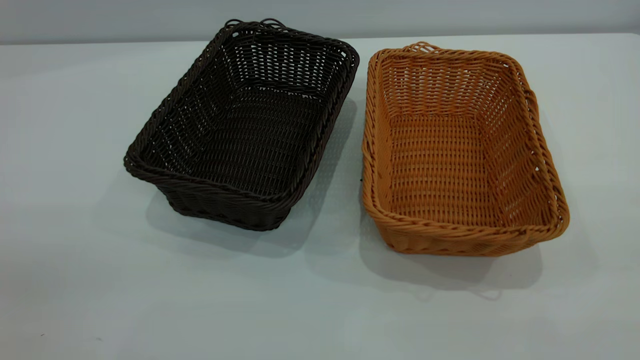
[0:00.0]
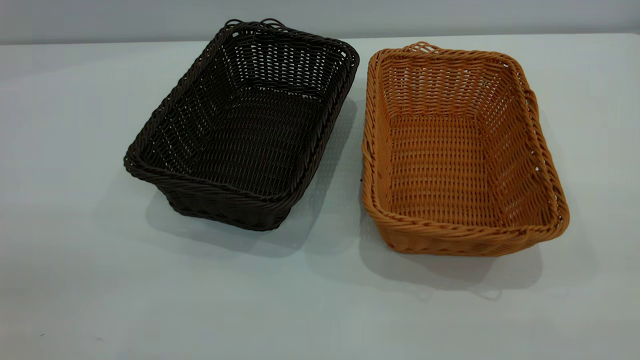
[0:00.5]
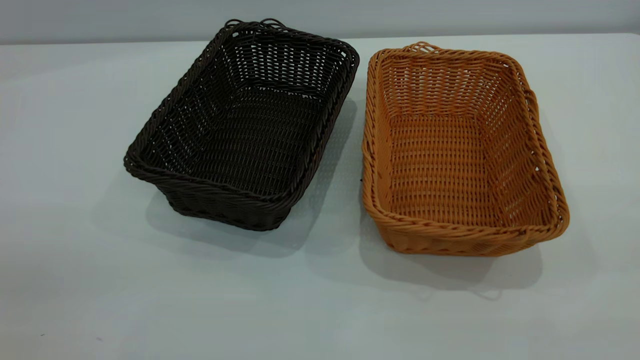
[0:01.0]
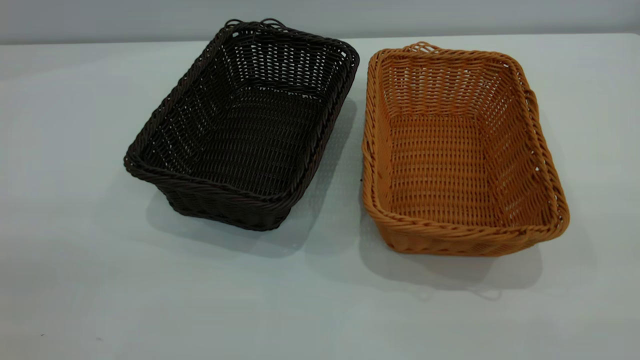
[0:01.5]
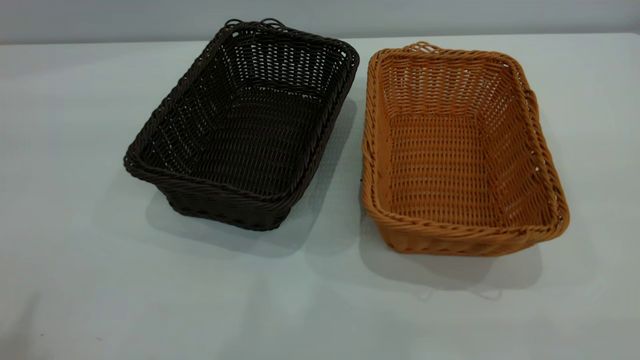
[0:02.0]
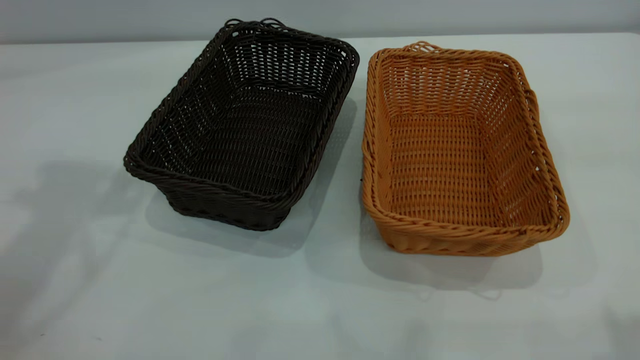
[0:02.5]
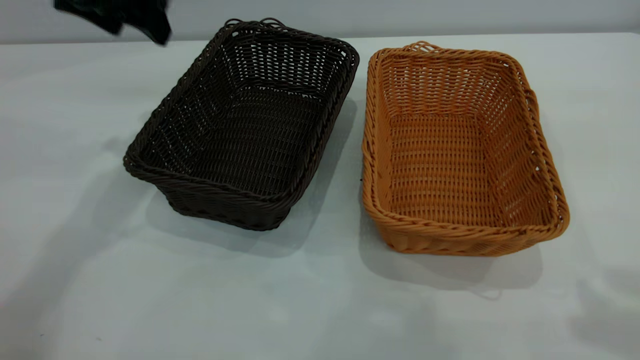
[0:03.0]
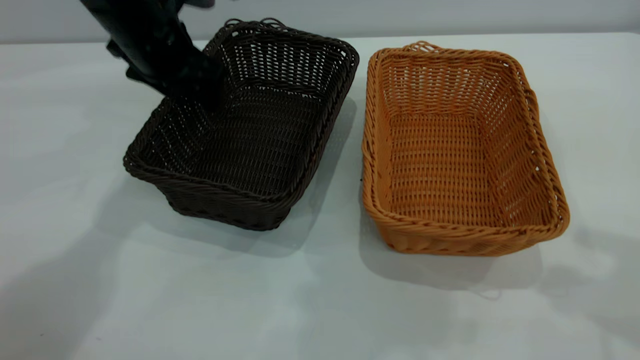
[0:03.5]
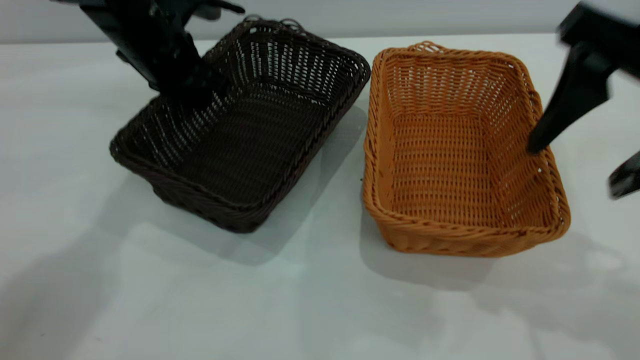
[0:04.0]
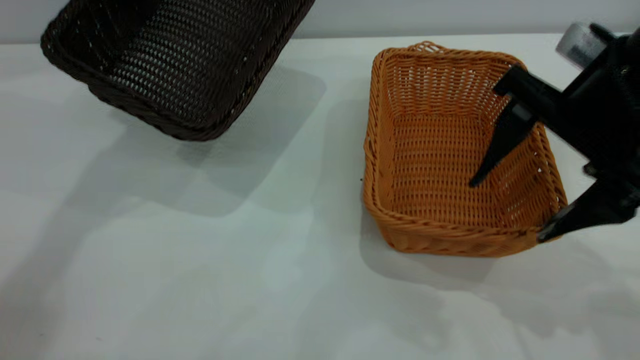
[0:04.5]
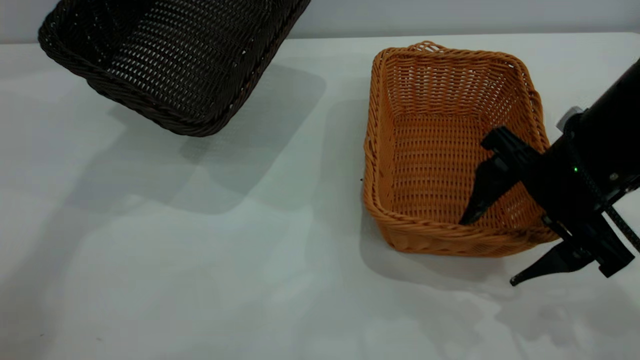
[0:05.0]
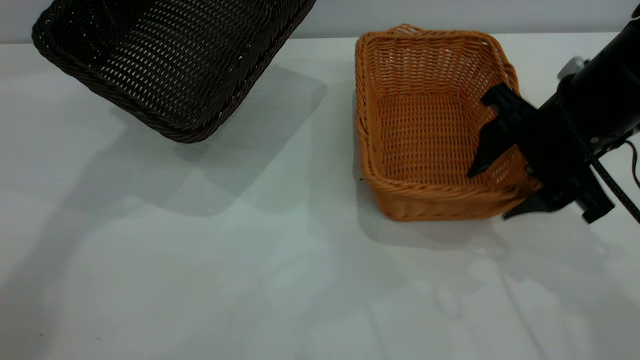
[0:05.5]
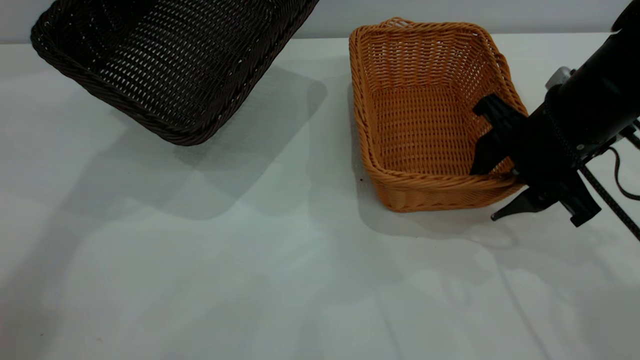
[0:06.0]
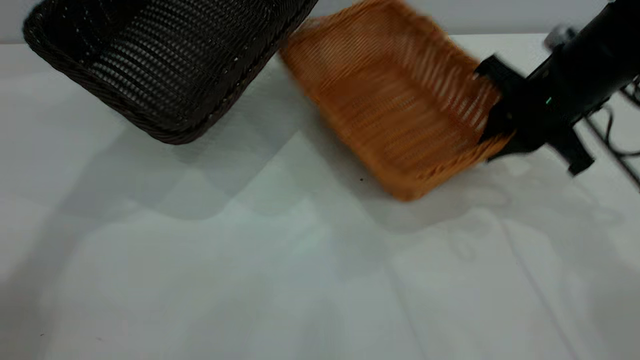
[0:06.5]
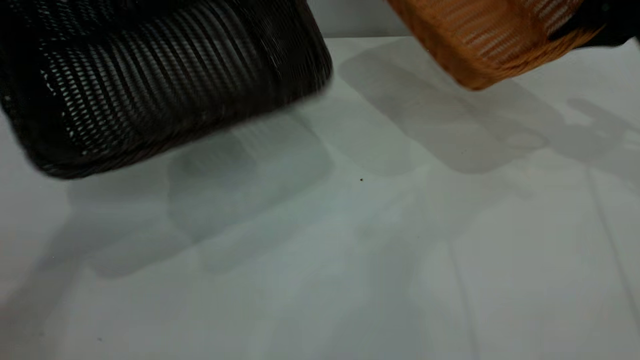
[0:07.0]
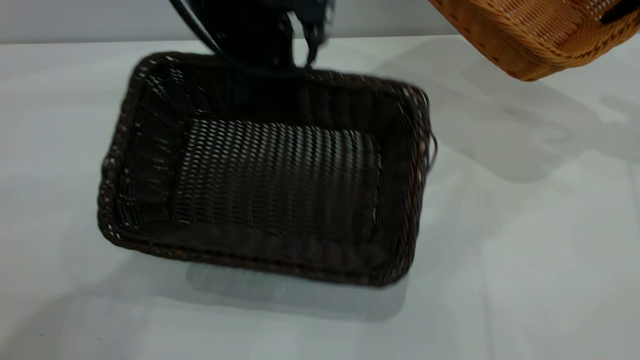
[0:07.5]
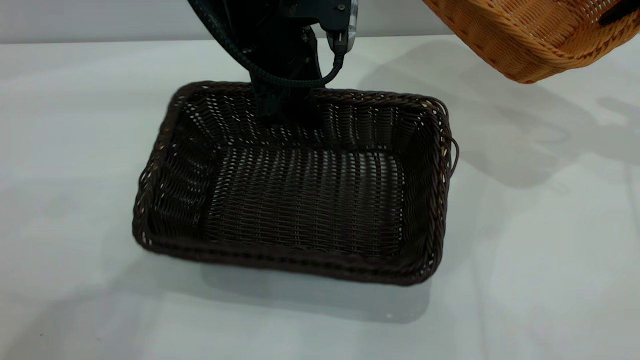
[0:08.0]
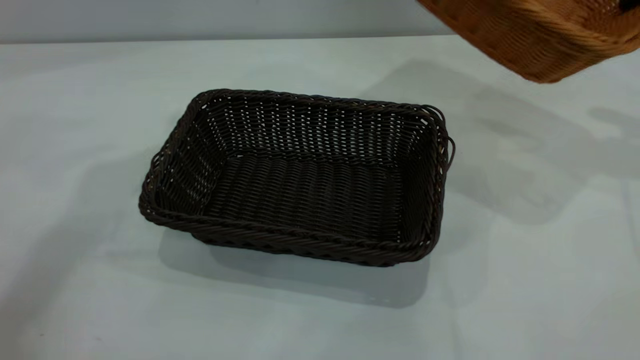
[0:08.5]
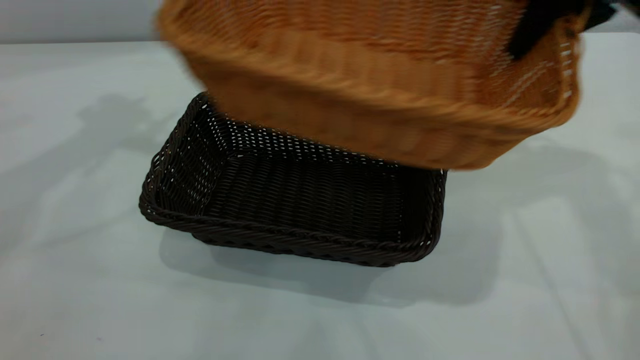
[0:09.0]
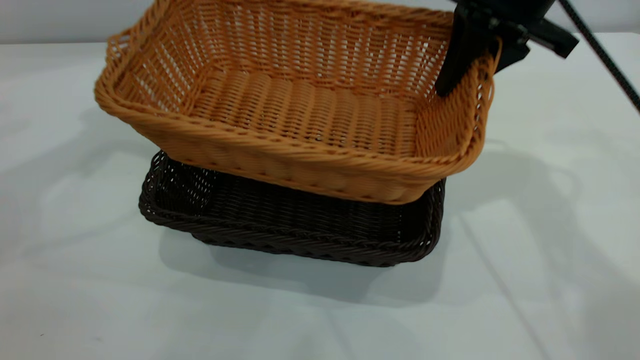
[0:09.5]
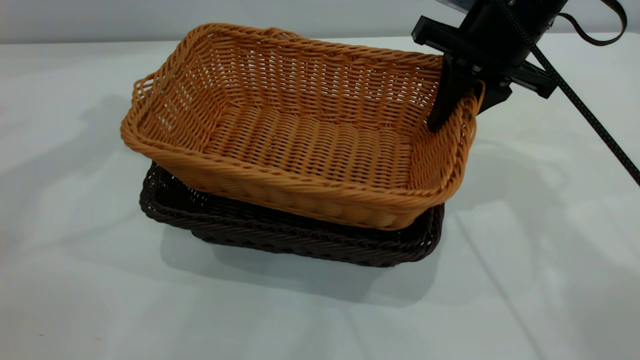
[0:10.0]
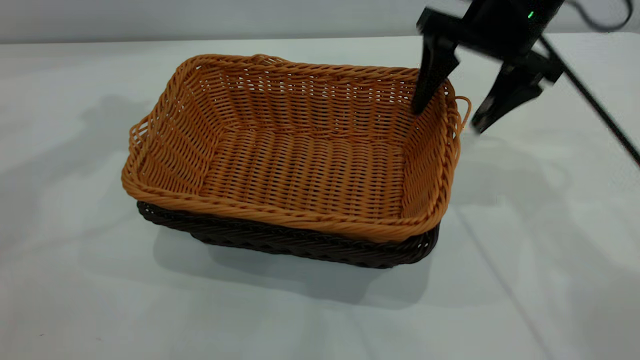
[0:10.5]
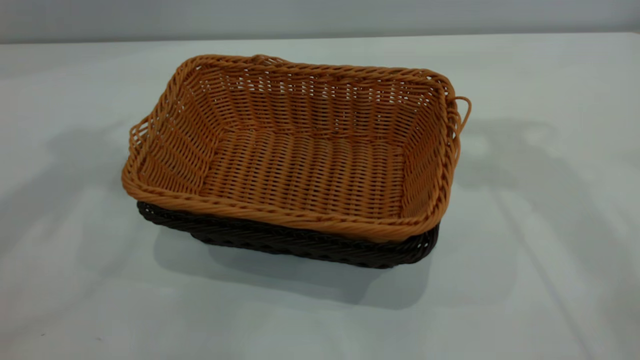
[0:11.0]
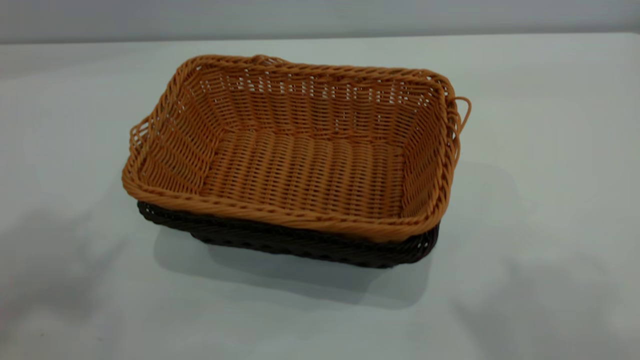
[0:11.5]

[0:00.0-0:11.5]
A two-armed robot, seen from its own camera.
Task of the whole recording: the left gripper grasp the black basket and place it in the center of the table, the right gripper grasp the brown basket and place it inside the black one.
Step, 0.0 to 6.5 s: Pick up the light basket with the right gripper.
Step, 7.0 to 8.0 s: Move the dark basket to the center of view.
Step, 8.5 to 10.5 s: Place the light basket on the dark basket.
2.0 to 4.0 s: The left gripper shifts about 40 cm forward and downward, and closes; the right gripper travels forward and downward by some 25 cm.
4.0 to 6.0 s: The left gripper heads upward, covering approximately 10 cm, while the right gripper is displaced downward and forward by roughly 15 cm, and closes.
6.0 to 7.5 s: The left gripper goes roughly 20 cm to the right, backward and downward. Meanwhile the right gripper heads to the right, forward and upward, covering roughly 25 cm, and closes its fingers.
7.5 to 9.5 s: The right gripper shifts roughly 20 cm to the left; the left gripper is displaced to the left and upward by roughly 25 cm, and opens.
9.5 to 11.5 s: The left gripper is displaced backward and upward by roughly 30 cm; the right gripper travels upward and backward by about 35 cm, and opens.

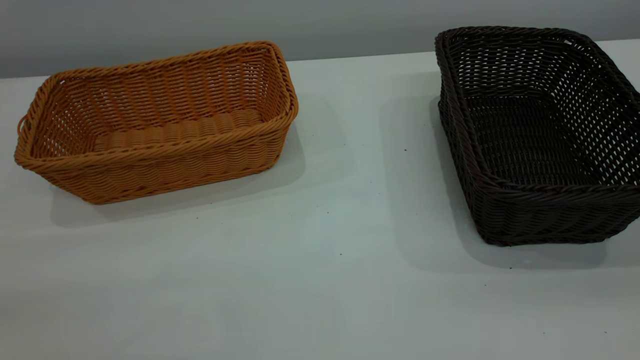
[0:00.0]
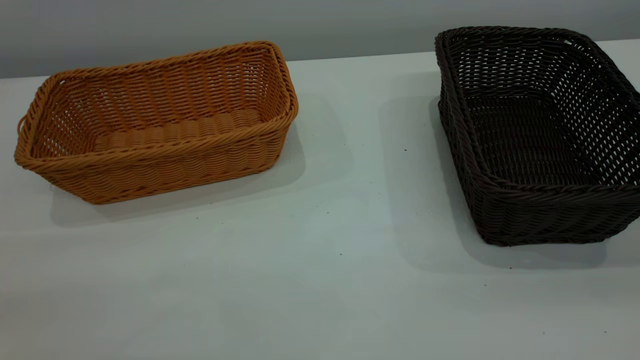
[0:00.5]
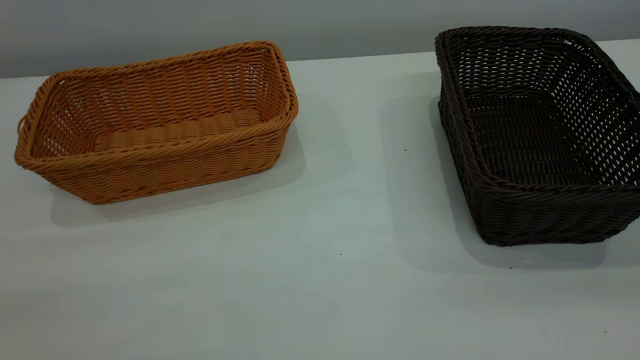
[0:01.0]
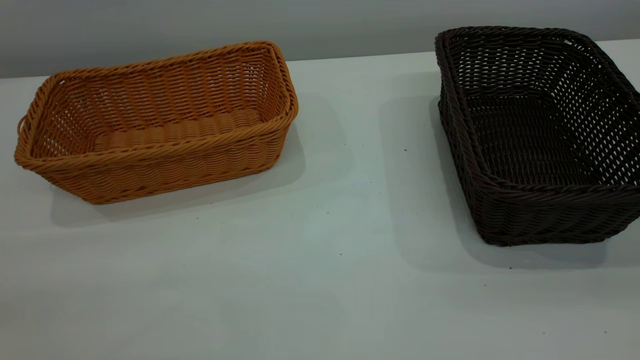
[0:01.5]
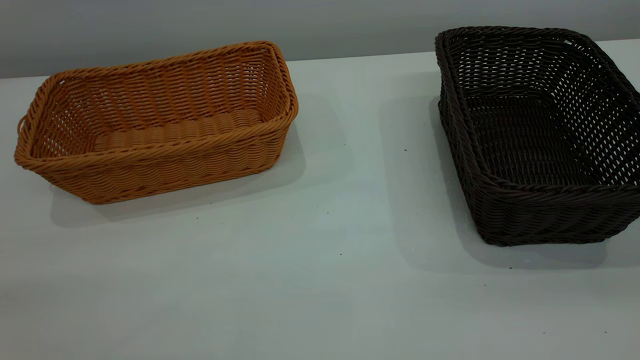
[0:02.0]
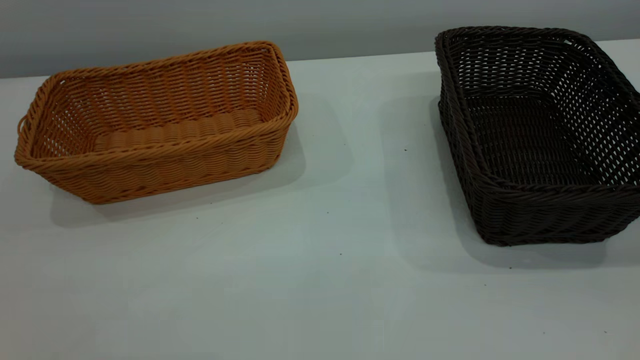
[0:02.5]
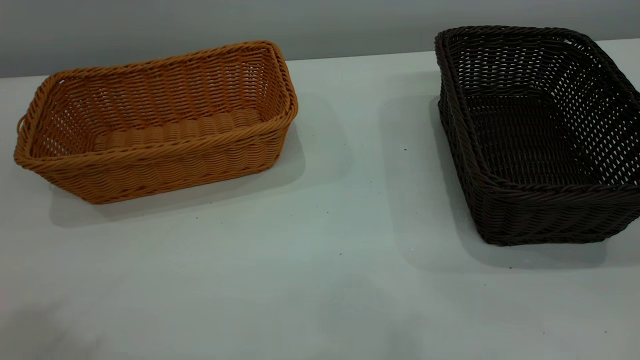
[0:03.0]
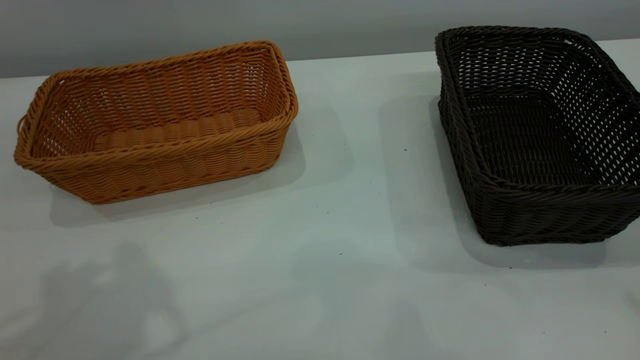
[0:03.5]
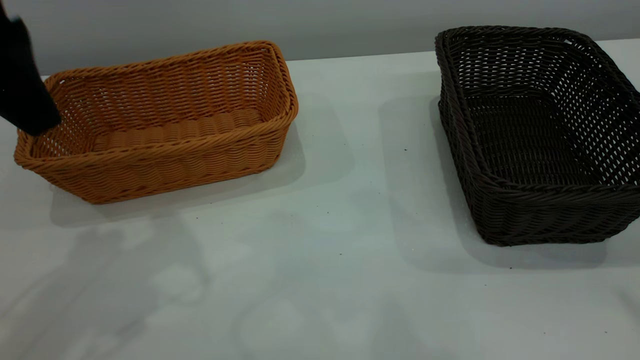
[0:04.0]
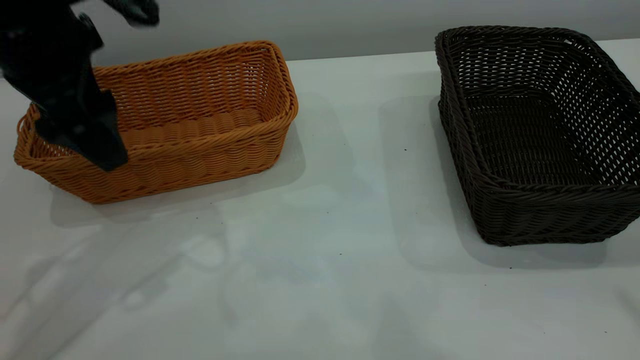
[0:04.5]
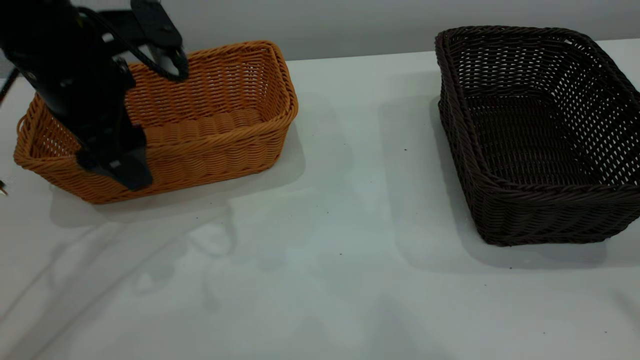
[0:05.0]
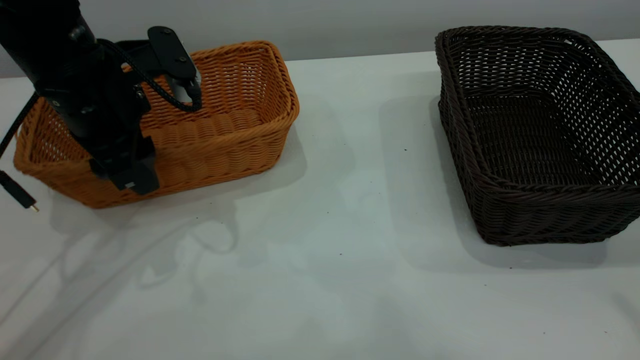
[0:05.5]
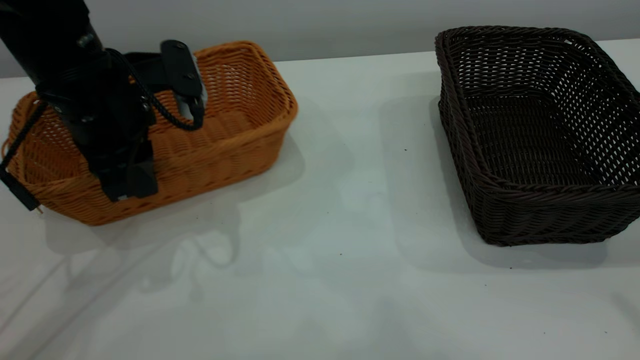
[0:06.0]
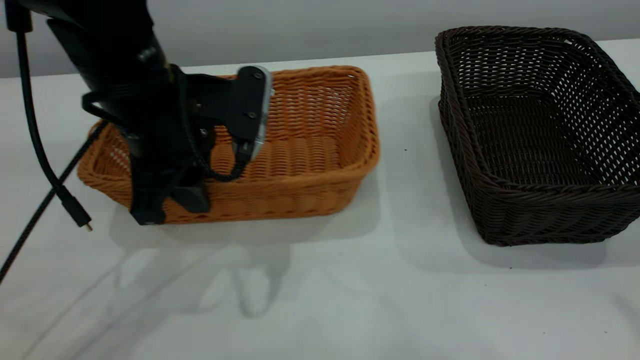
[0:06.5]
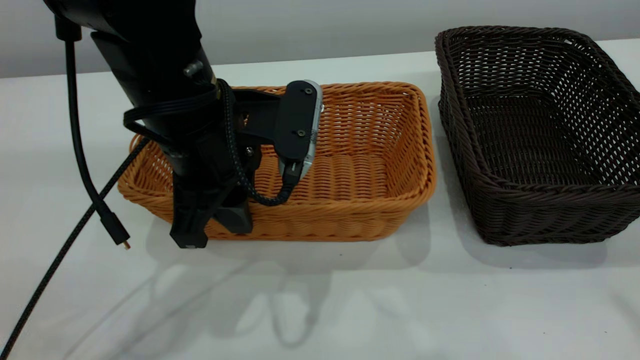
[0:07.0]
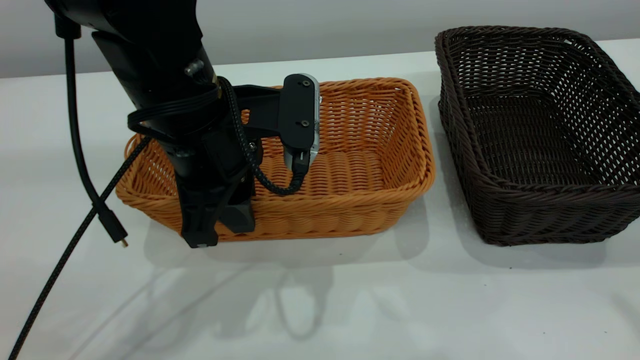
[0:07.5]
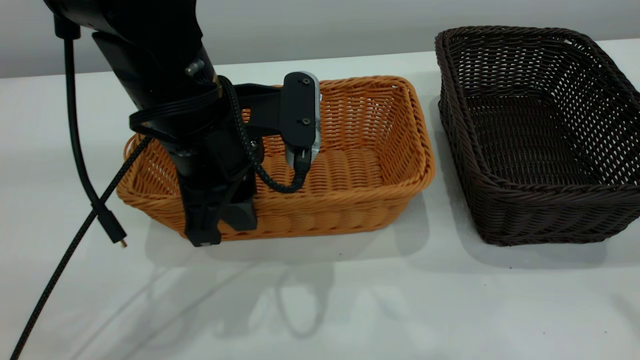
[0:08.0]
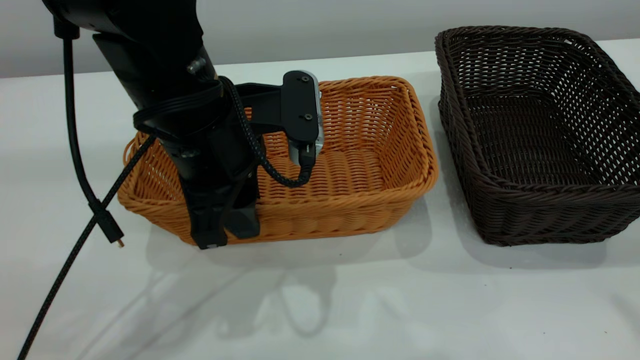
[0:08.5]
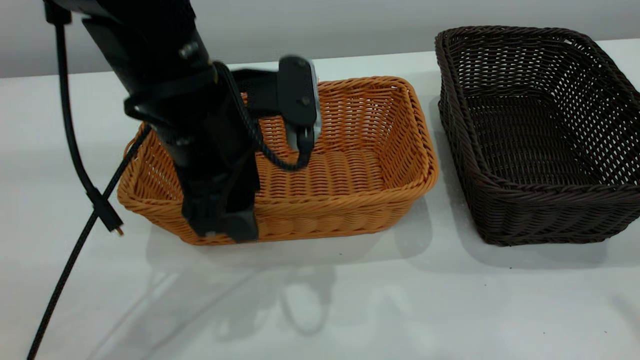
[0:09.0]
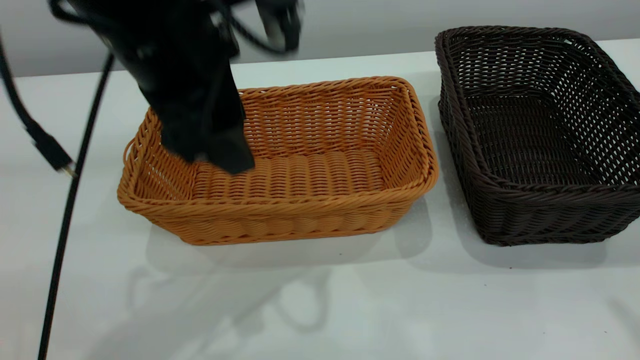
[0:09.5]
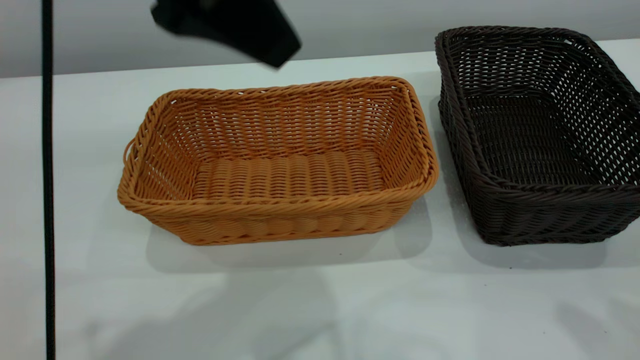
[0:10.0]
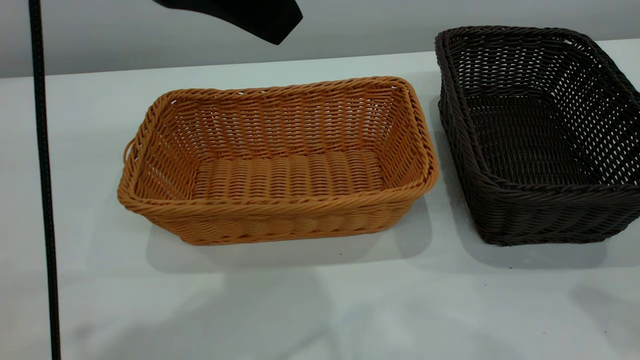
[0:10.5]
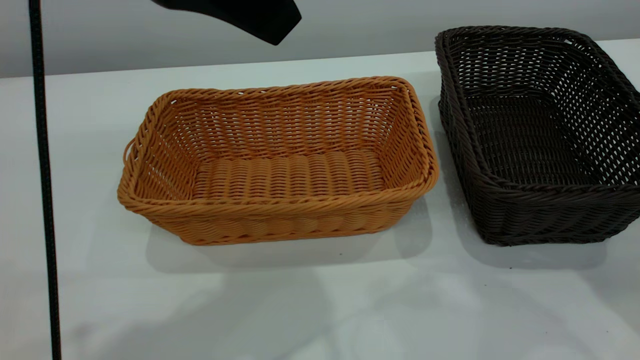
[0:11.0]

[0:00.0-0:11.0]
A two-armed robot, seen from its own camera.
Task of the whole recording: the left gripper grasp the brown basket and place it in the center of the table, the right gripper grasp the black basket and place it inside the brown one.
Step, 0.0 to 9.0 s: Place the light-colored basket in the center.
3.5 to 5.5 s: The left gripper goes approximately 25 cm downward and forward, and closes up.
5.5 to 7.5 s: The left gripper travels to the right and backward by approximately 10 cm.
7.5 to 9.0 s: The left gripper opens.
9.0 to 11.0 s: The right gripper heads downward, covering roughly 15 cm. Meanwhile the left gripper shifts about 15 cm upward.
